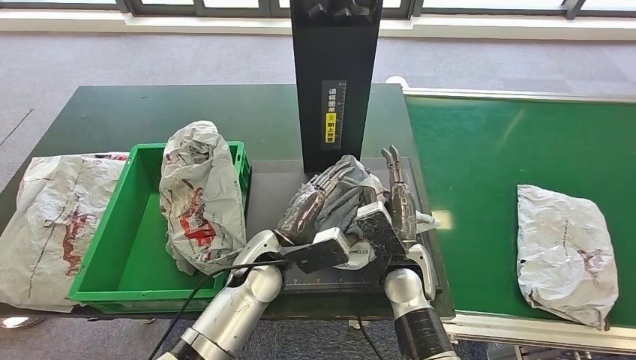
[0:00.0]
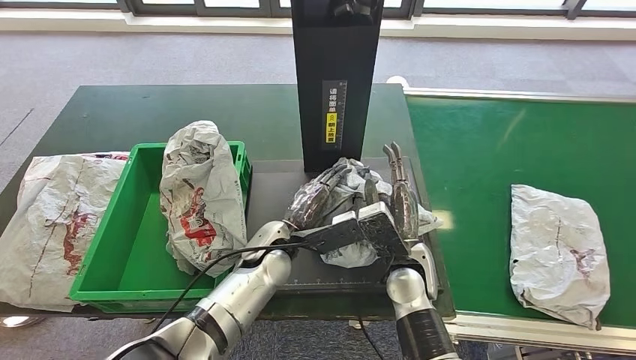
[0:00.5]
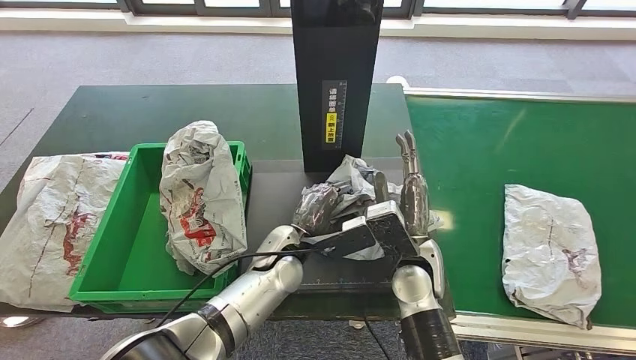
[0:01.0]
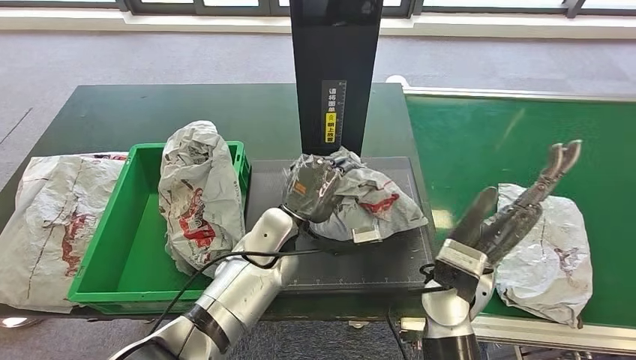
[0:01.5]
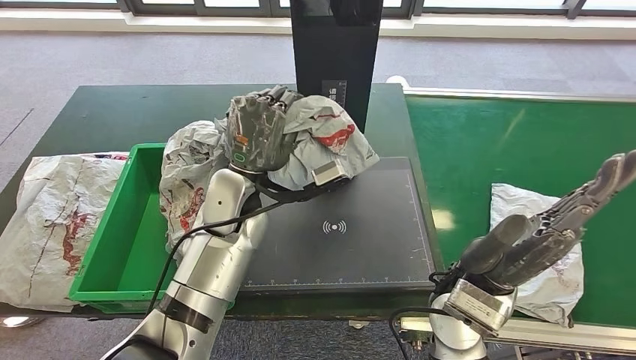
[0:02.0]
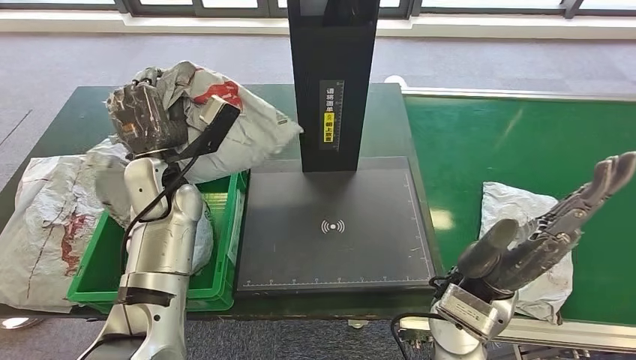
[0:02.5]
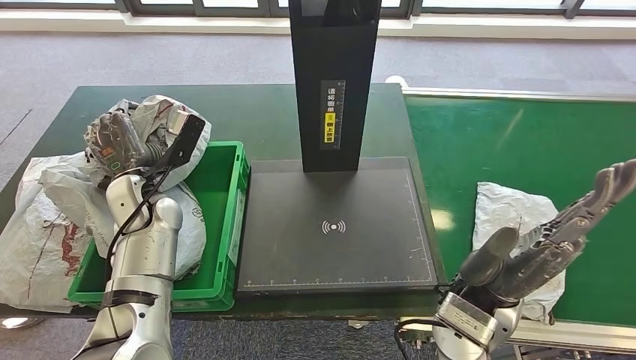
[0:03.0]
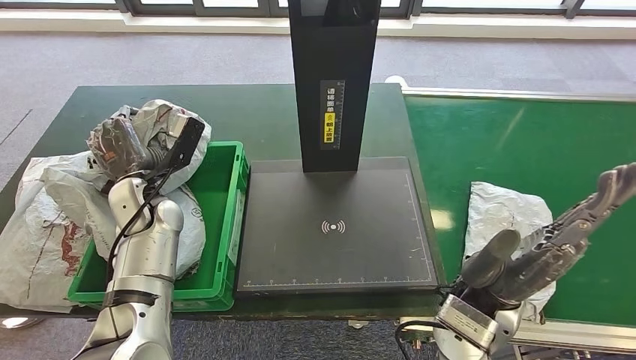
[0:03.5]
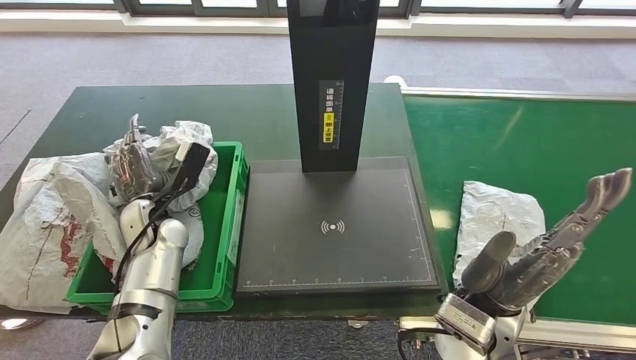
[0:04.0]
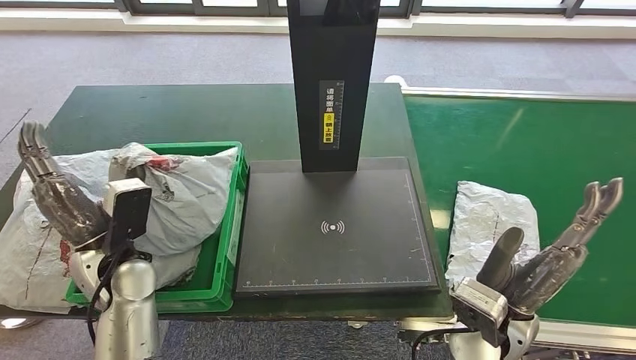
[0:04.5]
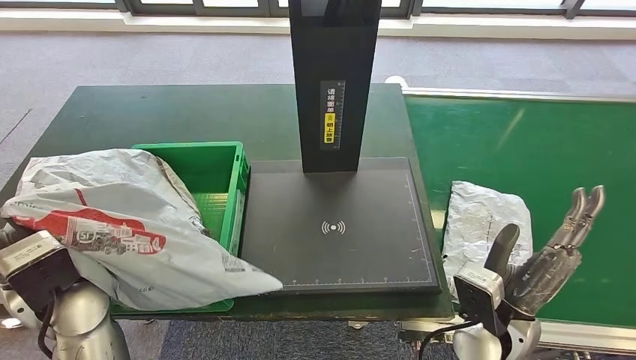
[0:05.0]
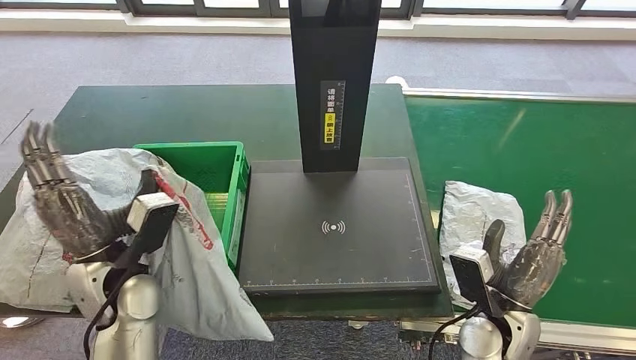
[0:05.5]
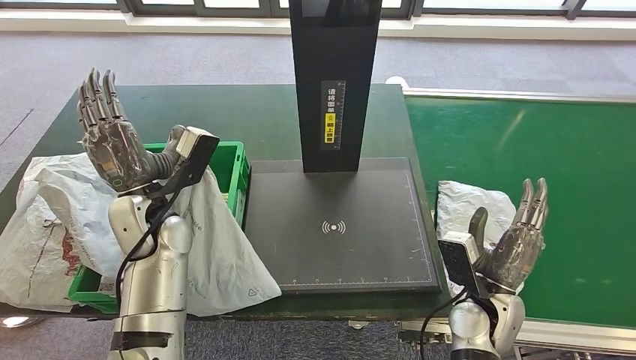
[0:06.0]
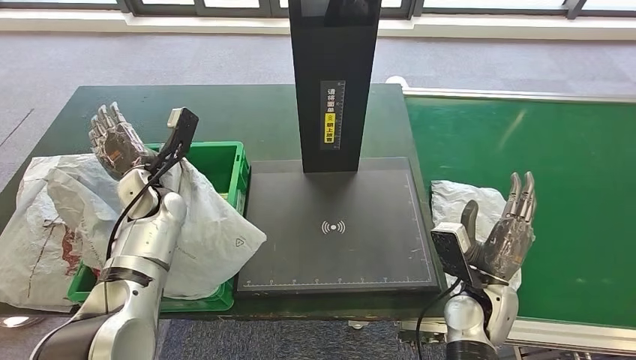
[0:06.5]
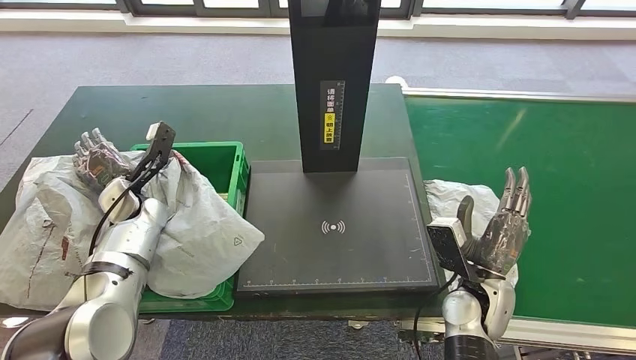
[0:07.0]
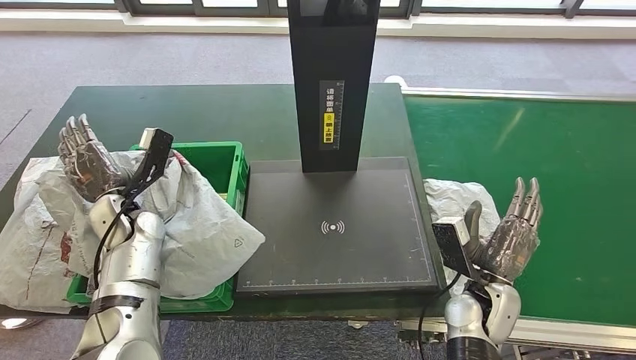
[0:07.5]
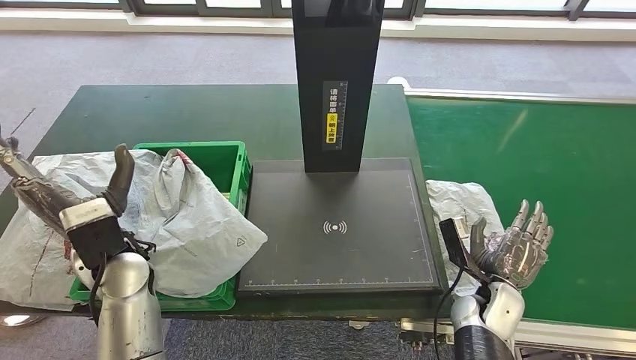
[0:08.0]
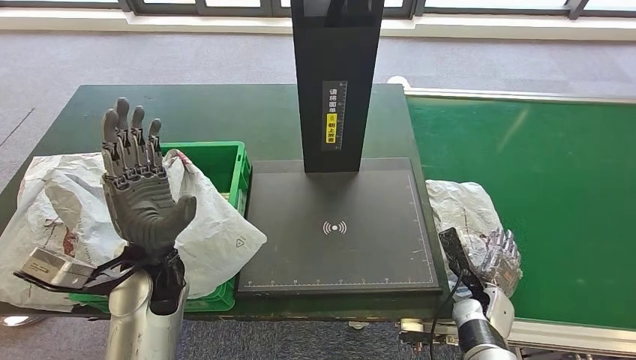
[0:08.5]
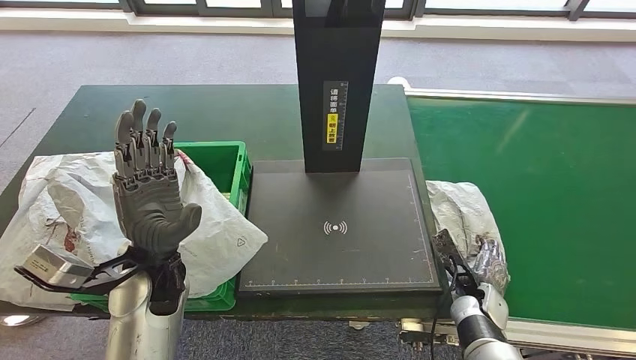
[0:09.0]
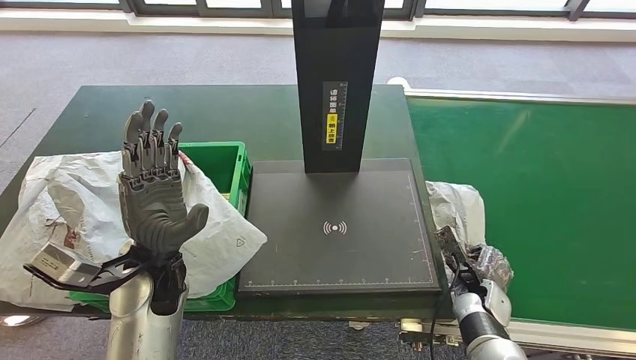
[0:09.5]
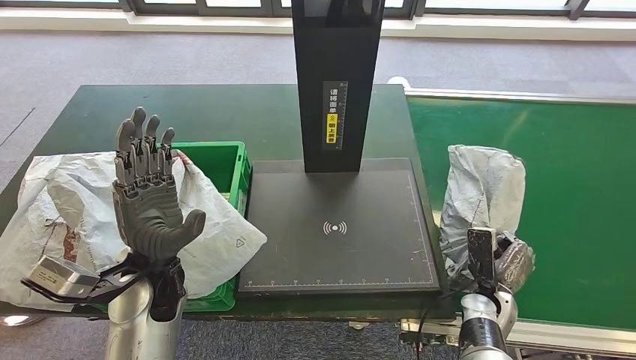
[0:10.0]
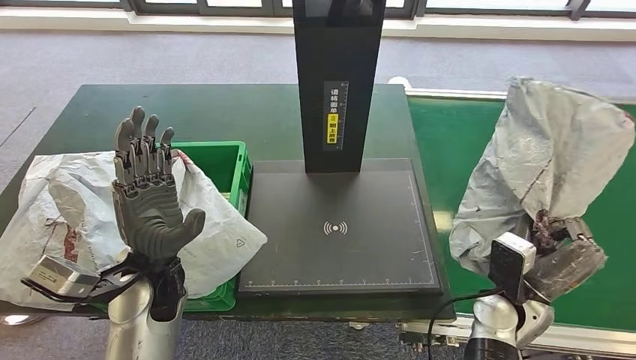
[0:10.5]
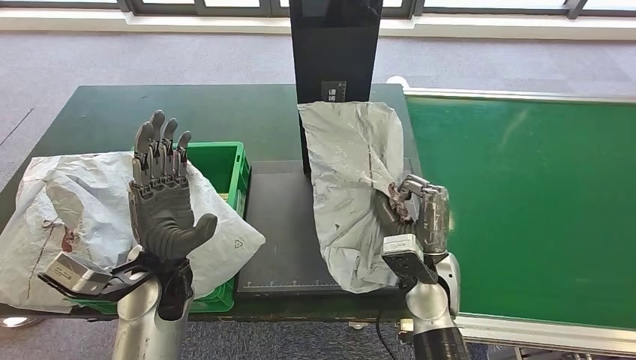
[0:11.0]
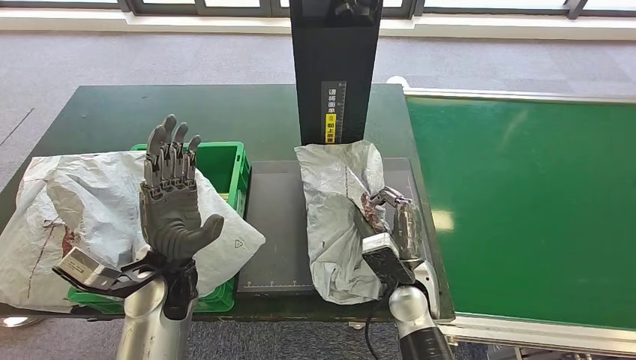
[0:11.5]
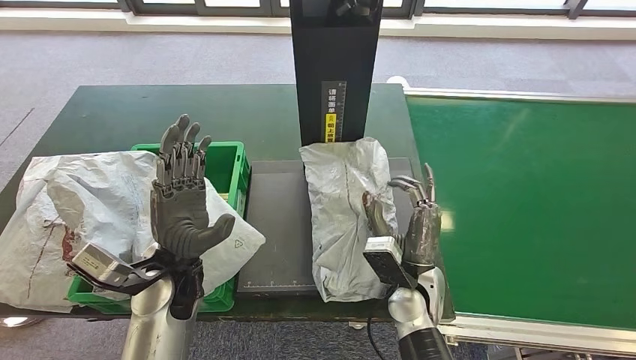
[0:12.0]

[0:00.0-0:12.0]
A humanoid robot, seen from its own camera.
Step, 0:01.0 to 0:02.0: Pick up the parcel from the inbound machine.
Step, 0:02.5 to 0:07.5: Place the parcel into the delivery box.
Step, 0:08.0 to 0:10.5: Pick up the parcel from the conveyor belt.
0:08.0 to 0:10.0: The left hand moves to the right, roughly 5 cm.

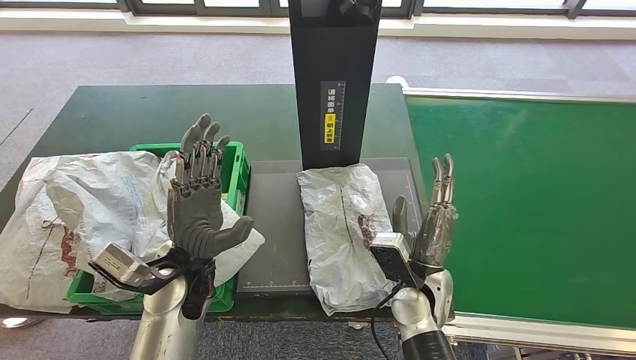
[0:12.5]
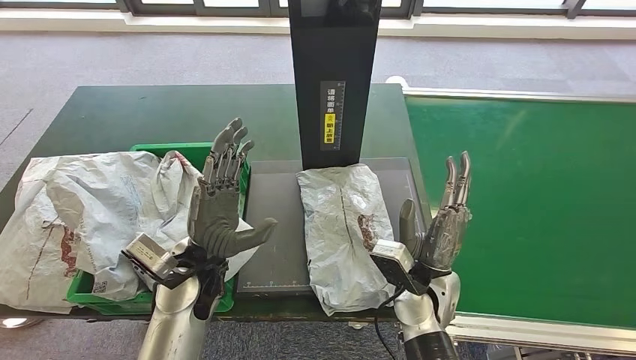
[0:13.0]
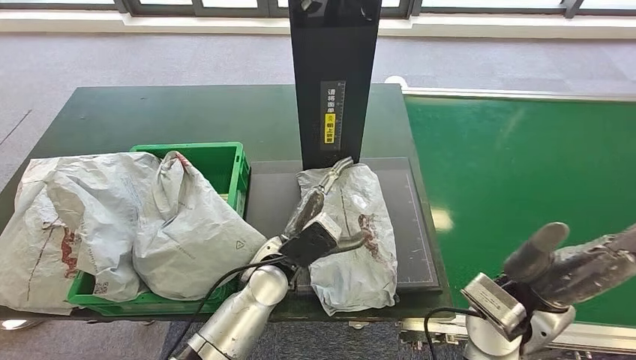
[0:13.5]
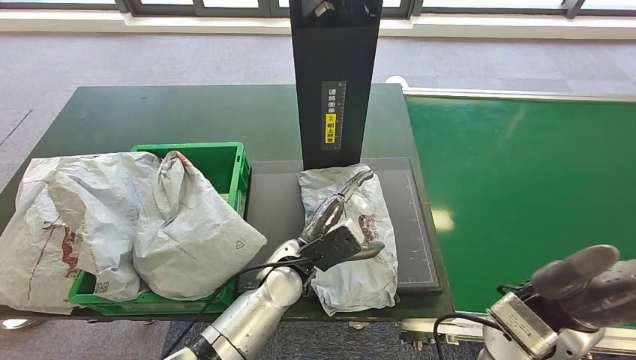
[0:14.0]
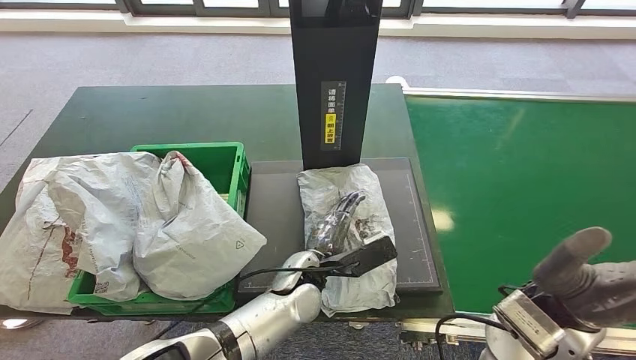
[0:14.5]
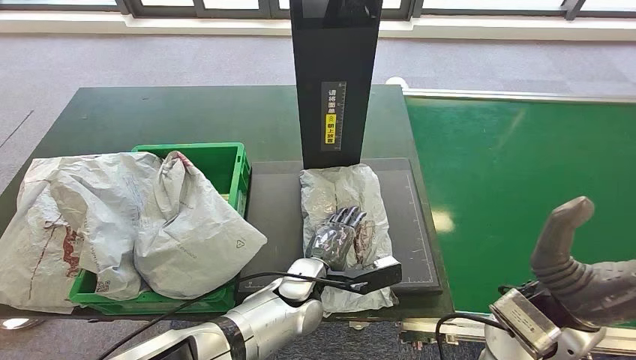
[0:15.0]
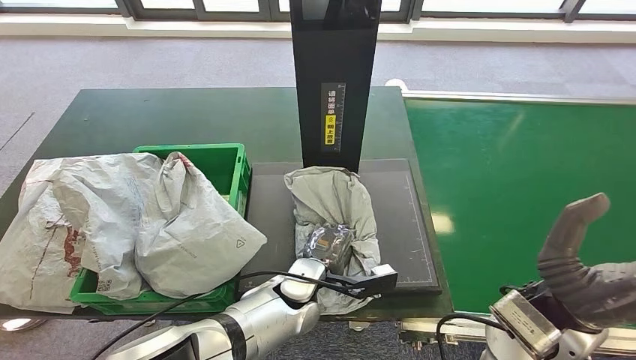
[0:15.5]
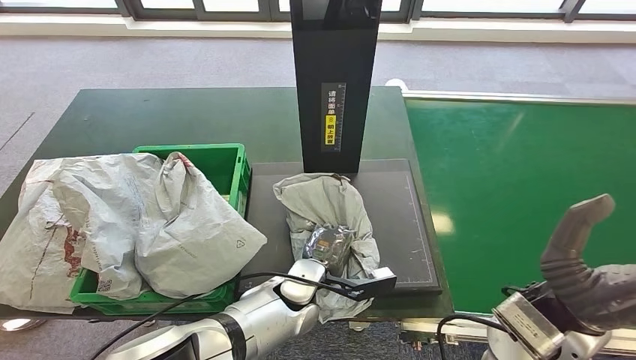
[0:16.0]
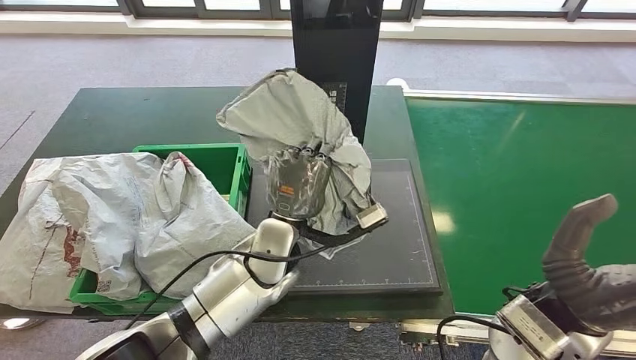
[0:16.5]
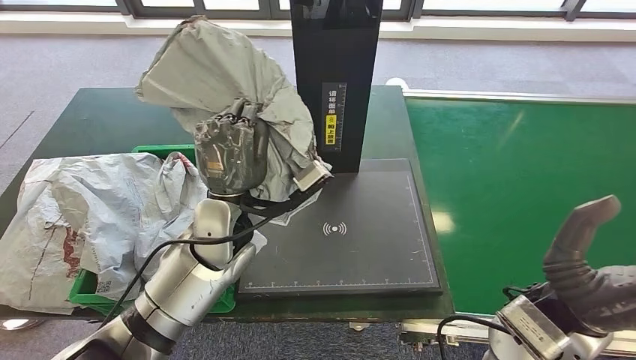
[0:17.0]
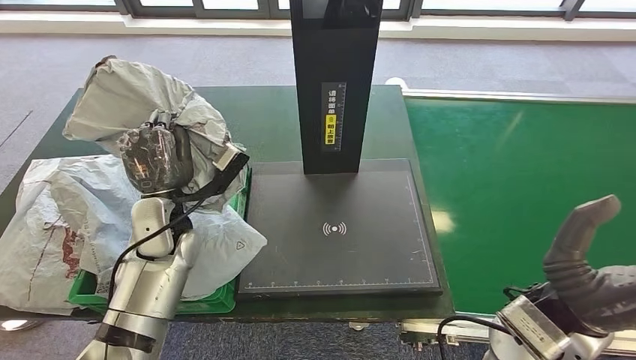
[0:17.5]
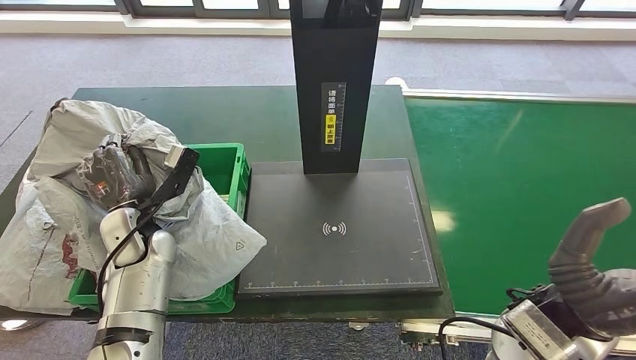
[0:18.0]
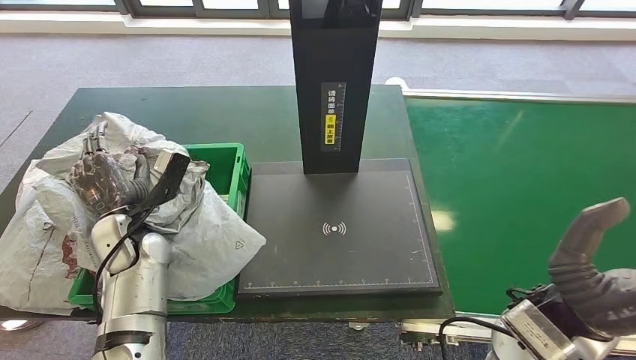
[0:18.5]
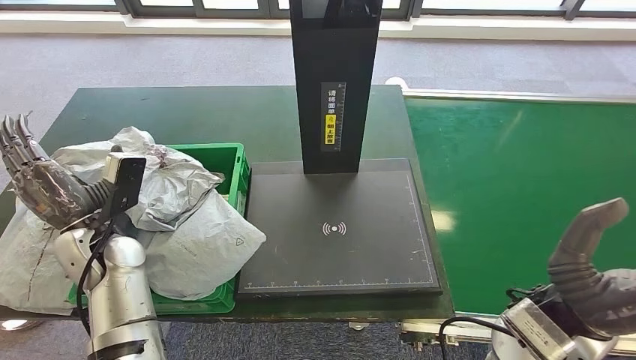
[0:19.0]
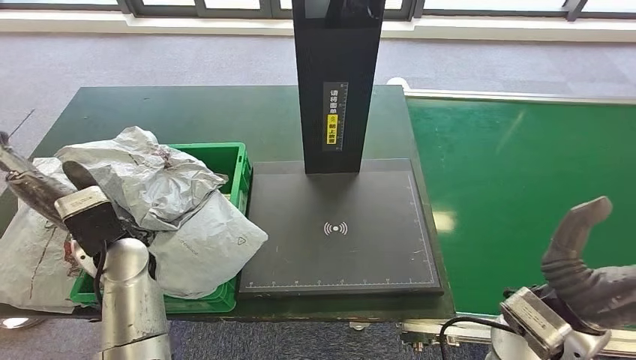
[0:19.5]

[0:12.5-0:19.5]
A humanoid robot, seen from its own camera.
Step, 0:13.0 to 0:16.5: Pick up the parcel from the inbound machine.
Step, 0:17.0 to 0:19.5: Place the parcel into the delivery box.
0:12.5 to 0:14.5: The left hand goes roughly 20 cm to the right and downward. Meanwhile the right hand moves upward and to the right, about 15 cm.
0:17.5 to 0:19.5: The left hand goes roughly 5 cm backward.
